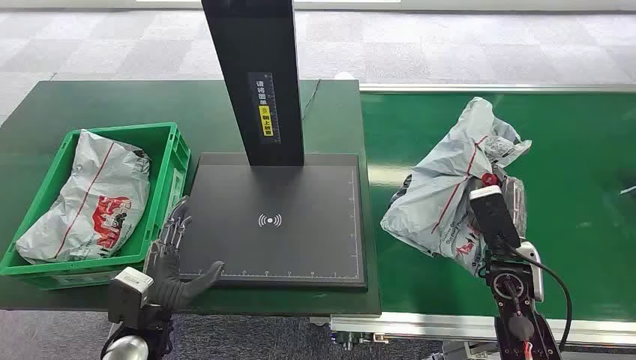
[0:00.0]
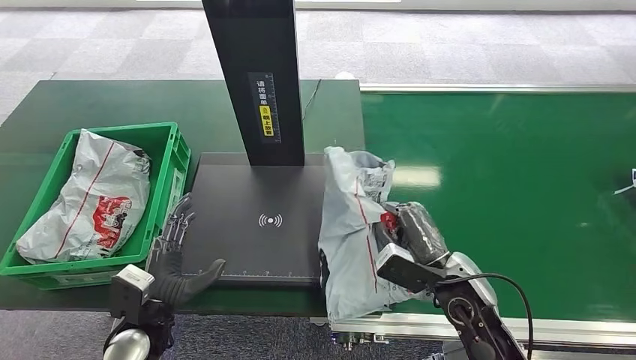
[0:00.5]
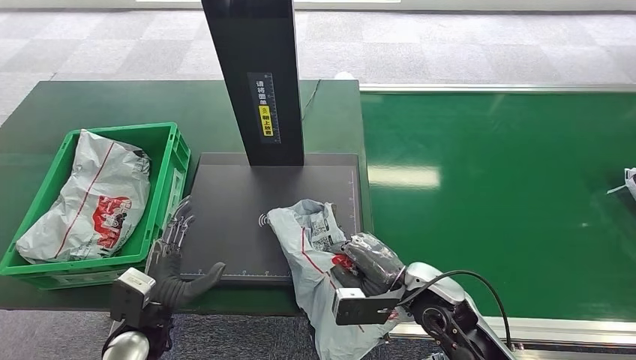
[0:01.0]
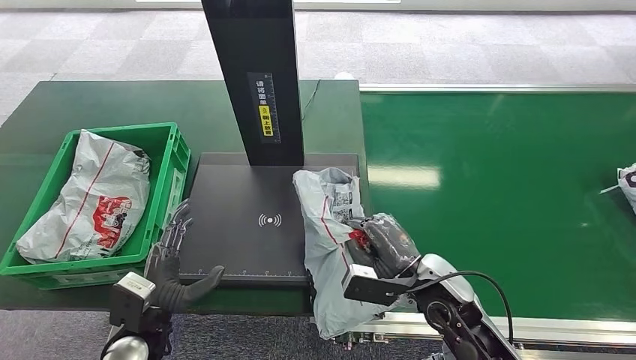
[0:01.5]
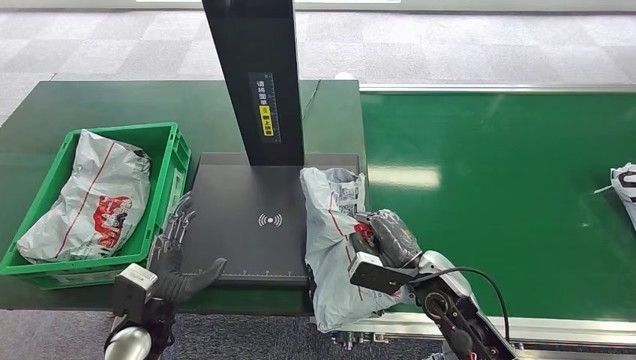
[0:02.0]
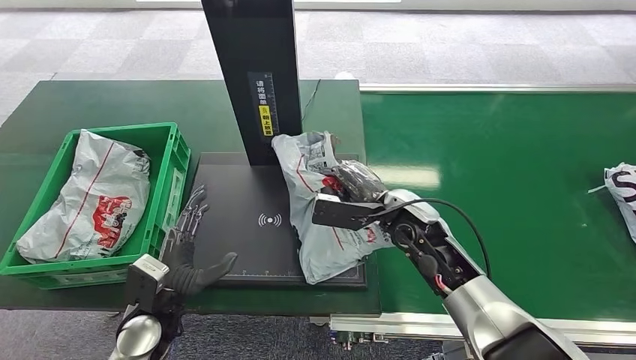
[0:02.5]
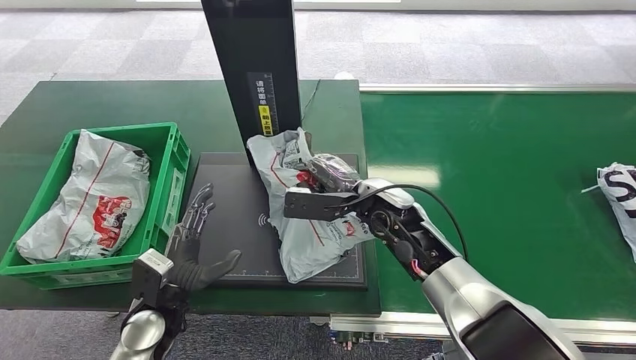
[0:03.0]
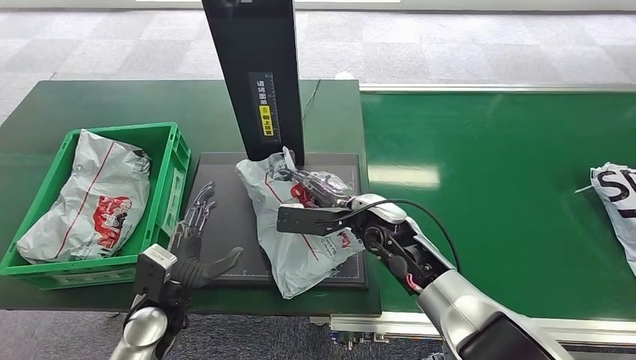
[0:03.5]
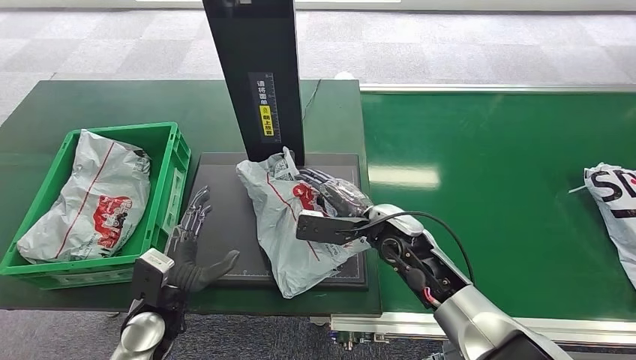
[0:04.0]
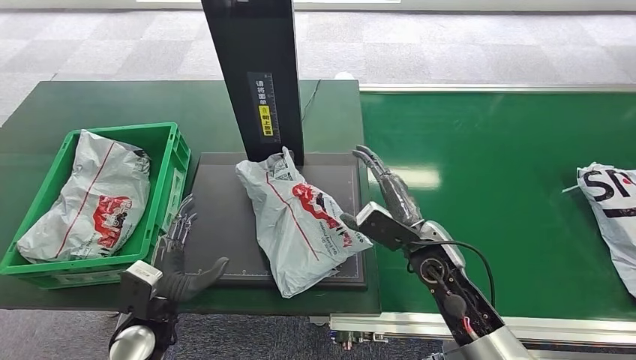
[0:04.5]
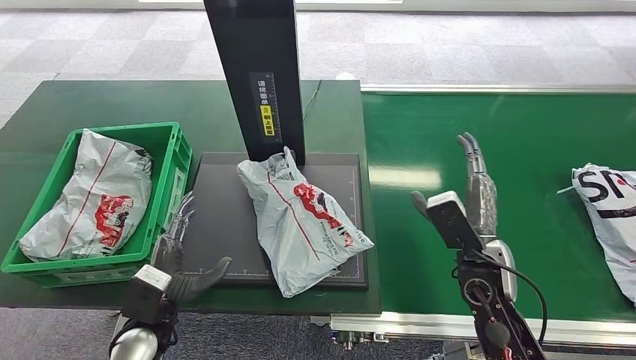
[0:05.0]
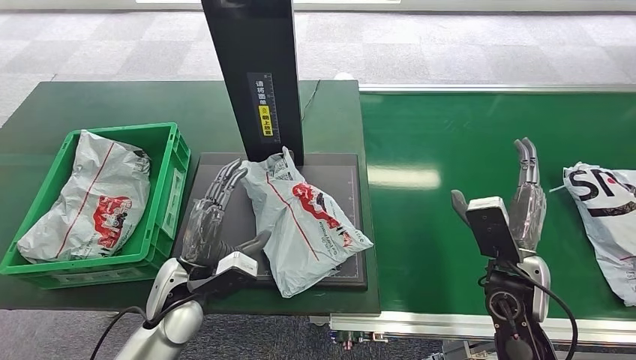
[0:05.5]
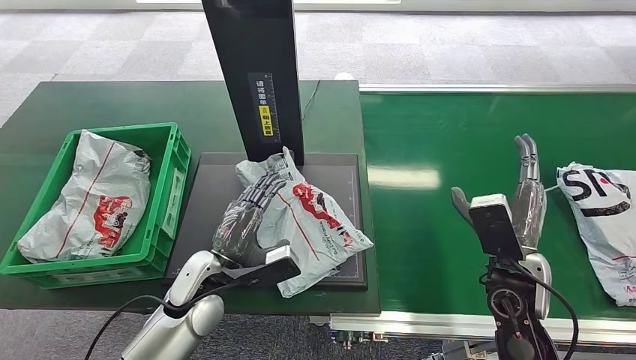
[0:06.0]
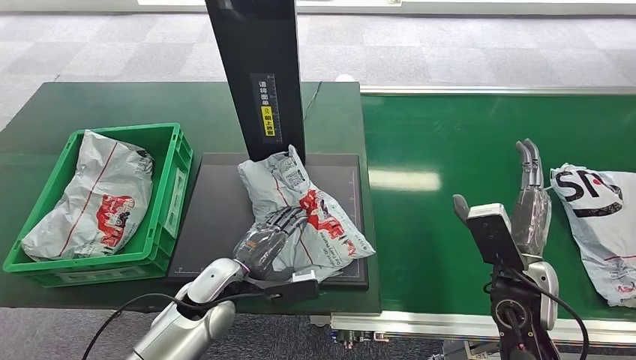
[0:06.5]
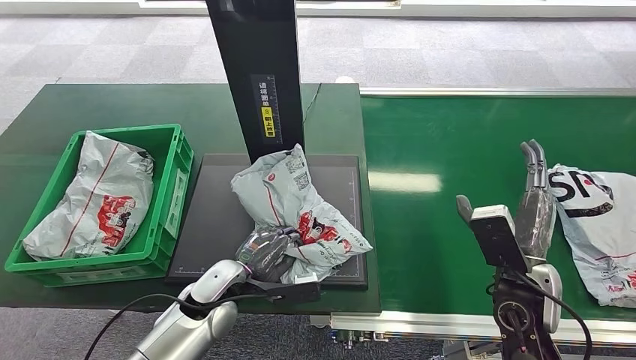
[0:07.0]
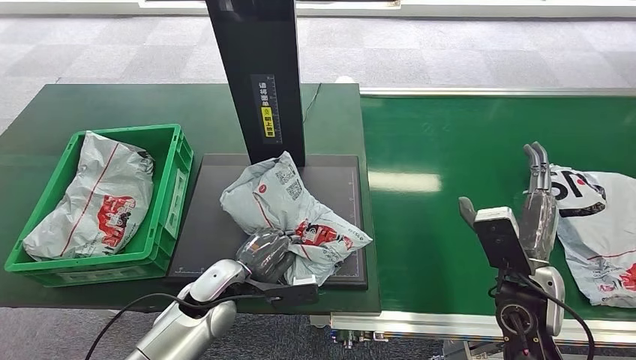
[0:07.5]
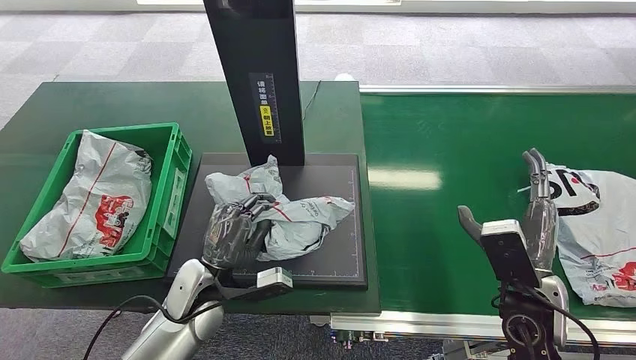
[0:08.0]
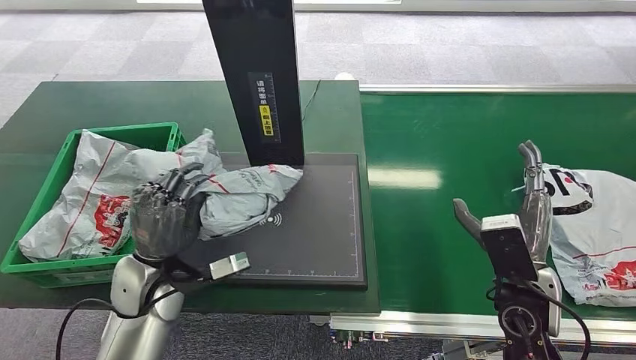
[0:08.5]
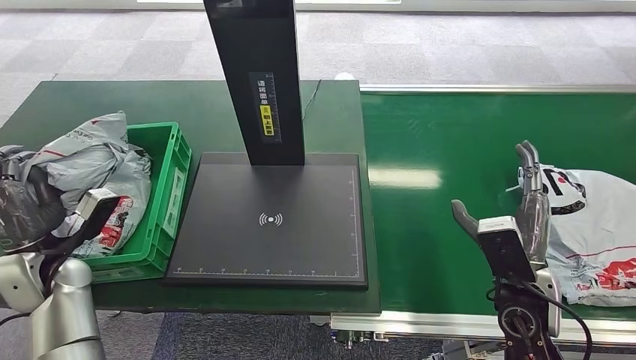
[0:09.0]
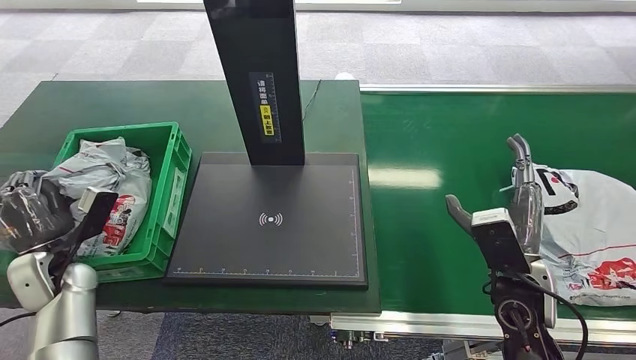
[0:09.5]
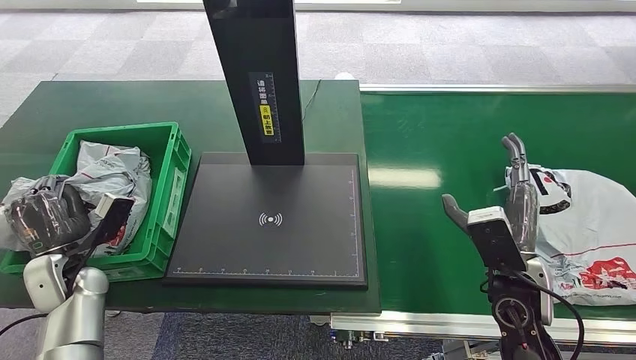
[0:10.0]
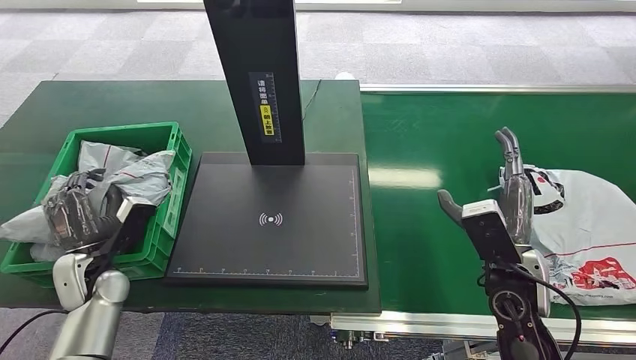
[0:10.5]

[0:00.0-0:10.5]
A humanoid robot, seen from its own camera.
Task of the whole recording: Weigh the package on the weighing device and place it in the left basket.
0:02.0 to 0:04.0: The right hand heads forward and to the left, covering roughly 10 cm.

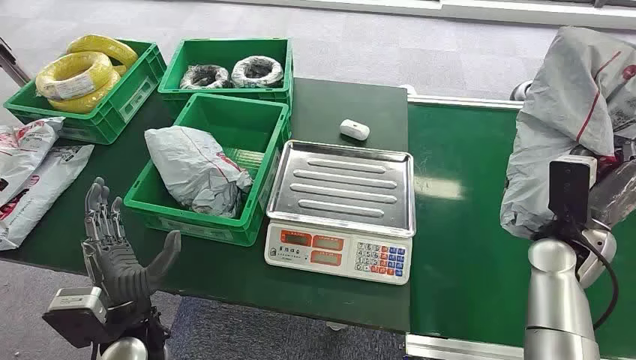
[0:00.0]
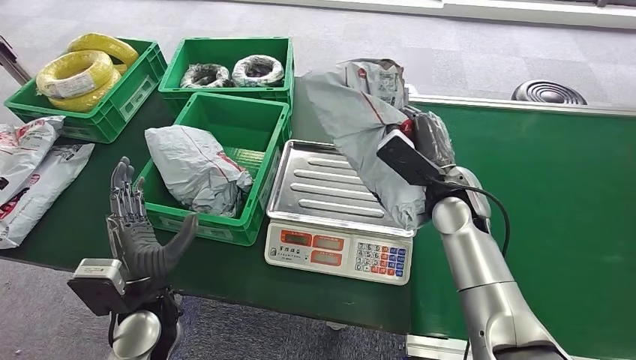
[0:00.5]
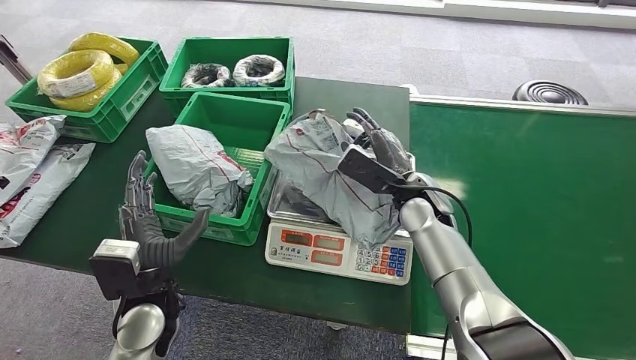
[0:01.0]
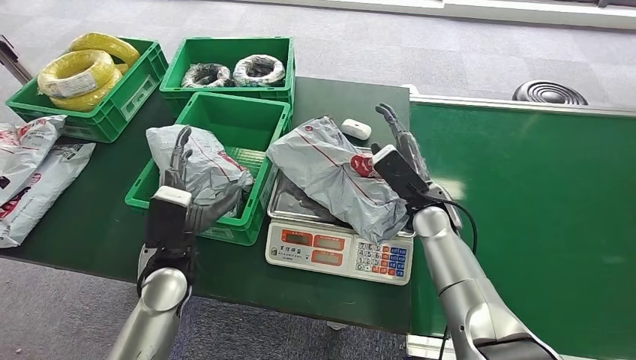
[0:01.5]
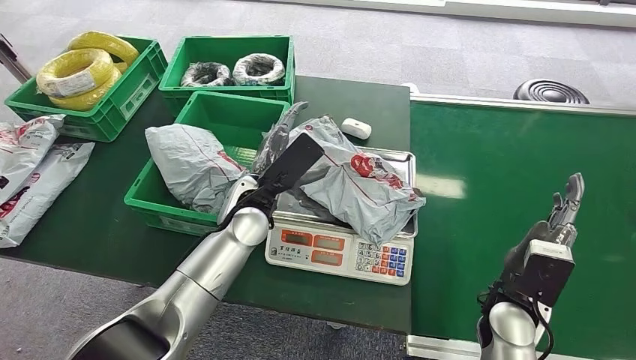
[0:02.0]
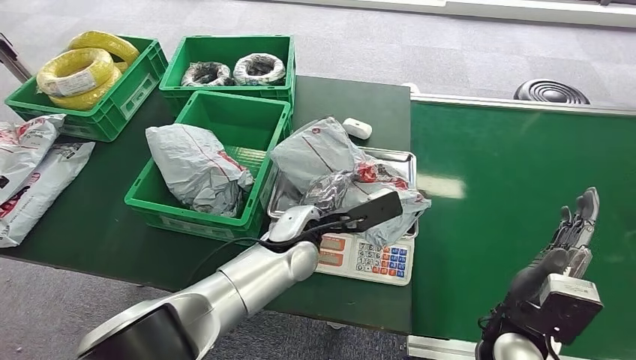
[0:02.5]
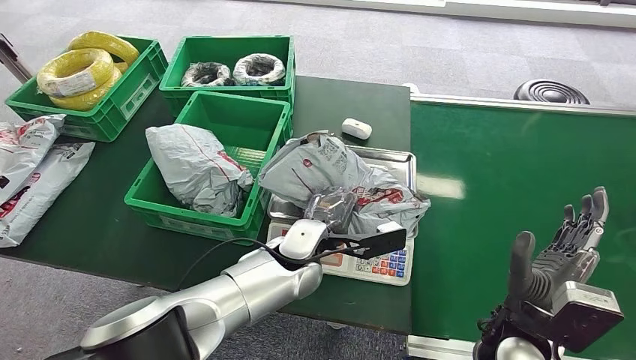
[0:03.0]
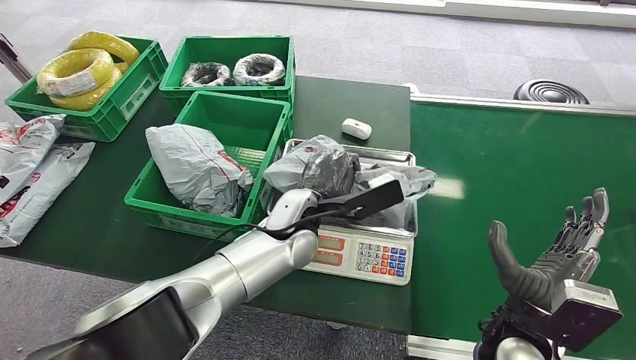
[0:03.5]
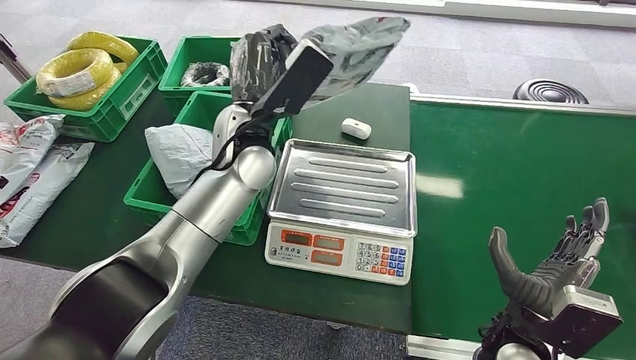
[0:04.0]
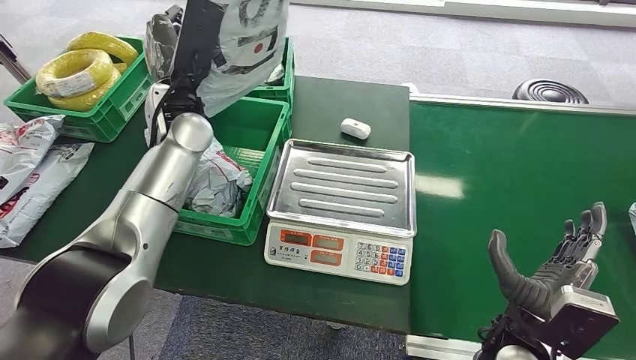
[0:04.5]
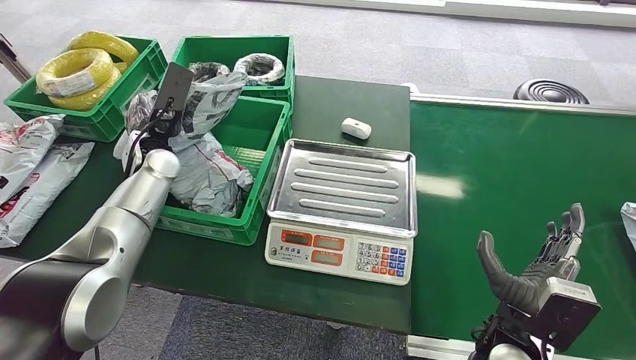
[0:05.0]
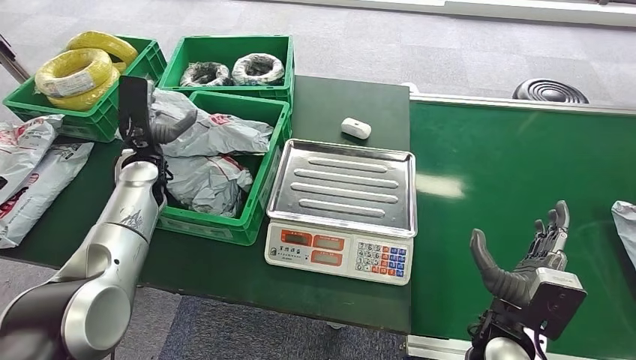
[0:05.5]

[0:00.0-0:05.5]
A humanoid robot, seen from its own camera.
Task of the whole recording: Weigh the package on the weighing device and place it in the left basket.
Step, 0:00.5 to 0:01.0: Place the package onto the inbound machine.
Step, 0:01.5 to 0:03.5: Pick up the package from the inbound machine.
Step, 0:04.0 to 0:05.5: Place the package into the parcel locker.
0:02.0 to 0:03.5: The left hand shifts roughly 5 cm to the right, while the right hand moves approximately 5 cm.
